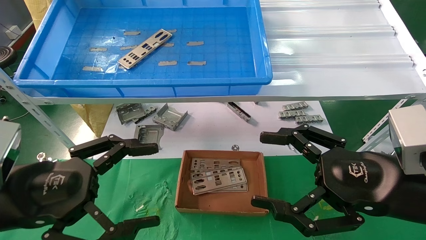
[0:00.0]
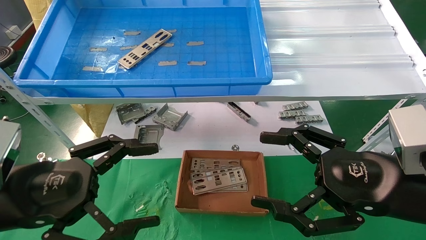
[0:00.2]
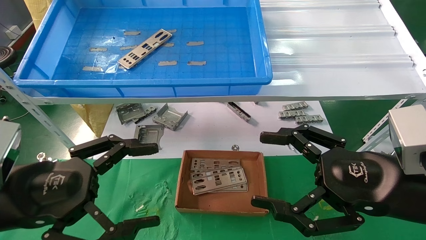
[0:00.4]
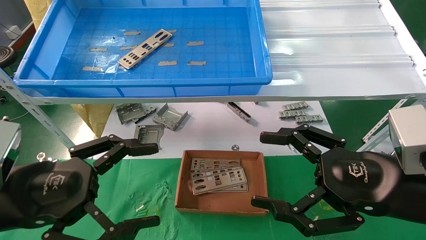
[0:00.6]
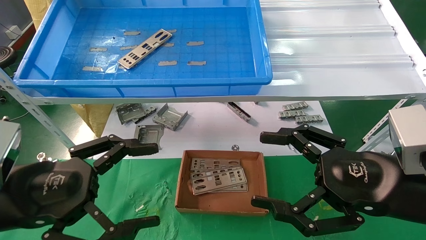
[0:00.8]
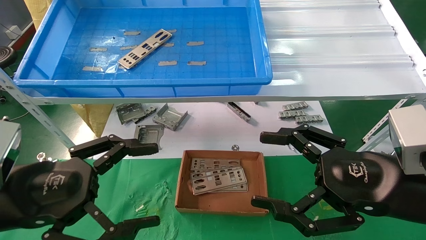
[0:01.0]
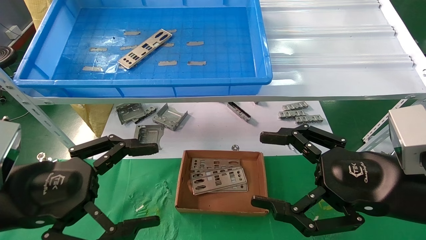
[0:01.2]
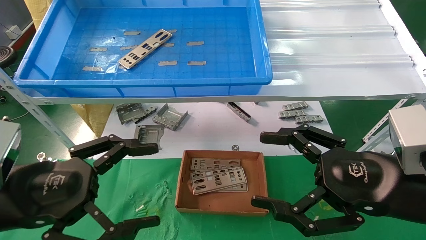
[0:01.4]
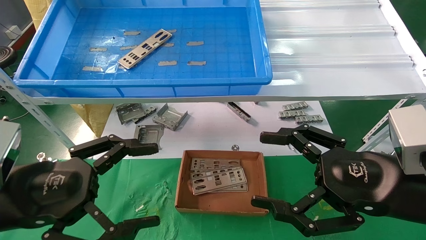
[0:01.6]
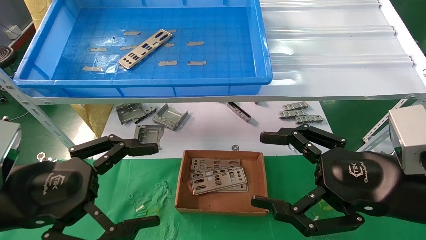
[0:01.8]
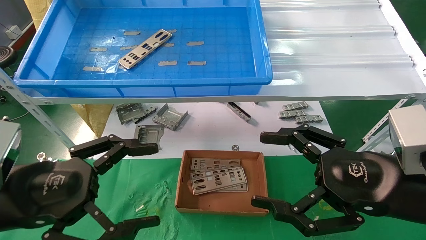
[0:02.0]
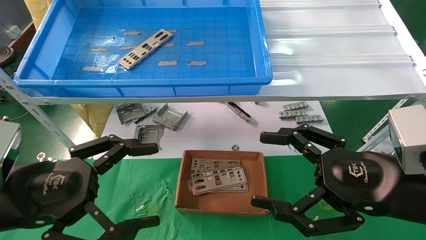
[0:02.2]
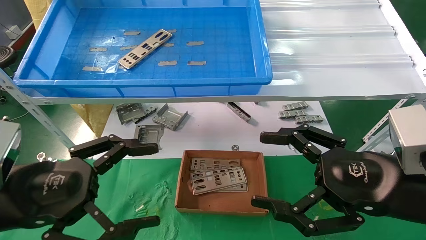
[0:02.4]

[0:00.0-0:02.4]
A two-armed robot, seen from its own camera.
Task of the whole recording: pick up the parts on the tray and put them in the cardboard box.
0:00.0 to 0:02.4: Both grippers stay about where they are.
